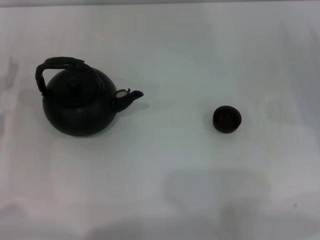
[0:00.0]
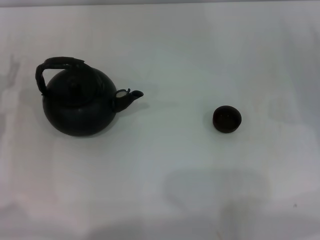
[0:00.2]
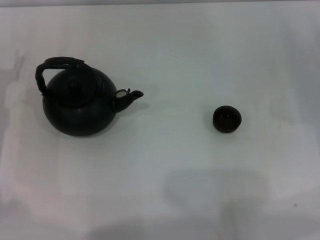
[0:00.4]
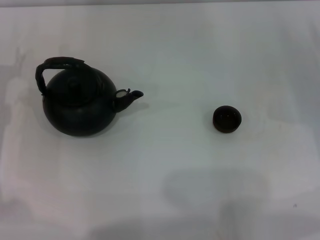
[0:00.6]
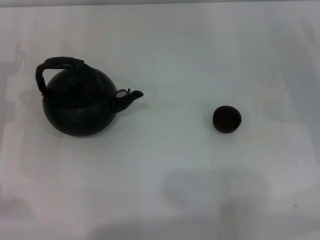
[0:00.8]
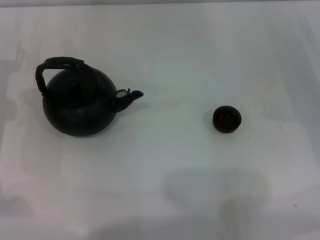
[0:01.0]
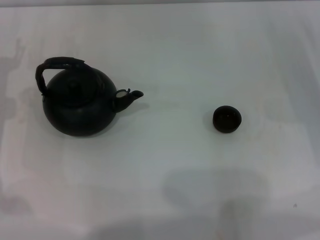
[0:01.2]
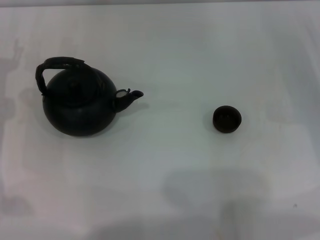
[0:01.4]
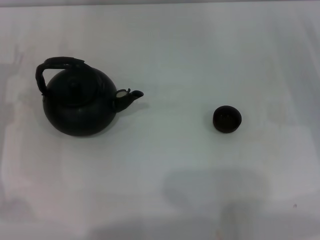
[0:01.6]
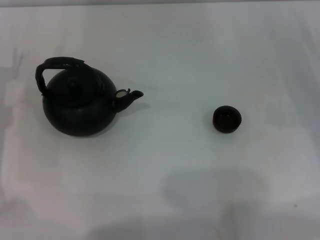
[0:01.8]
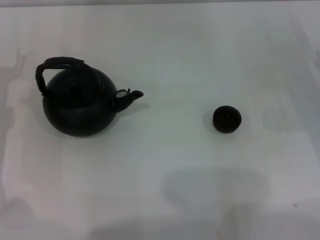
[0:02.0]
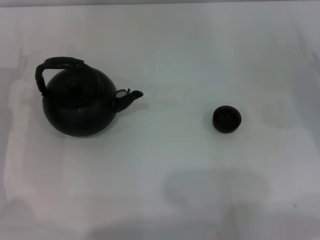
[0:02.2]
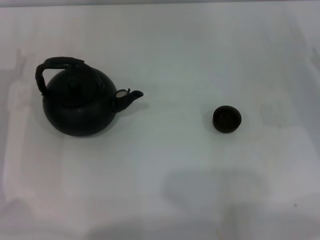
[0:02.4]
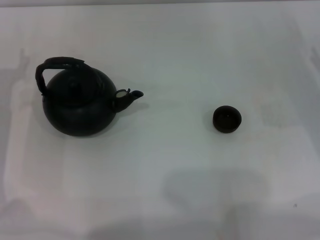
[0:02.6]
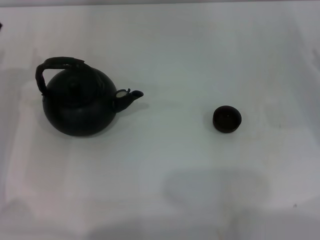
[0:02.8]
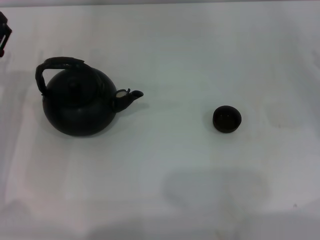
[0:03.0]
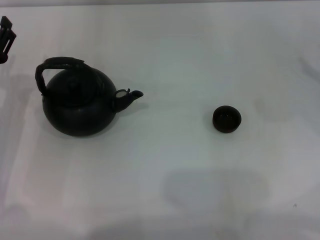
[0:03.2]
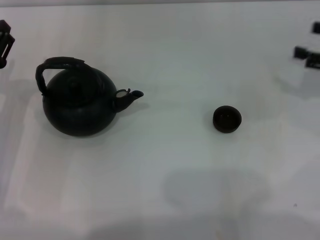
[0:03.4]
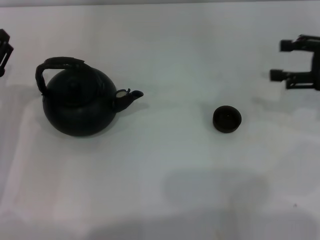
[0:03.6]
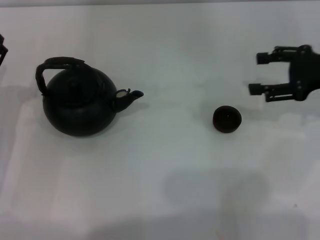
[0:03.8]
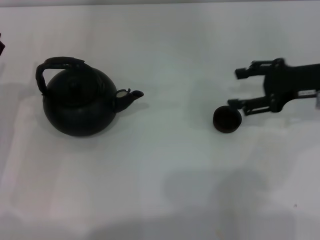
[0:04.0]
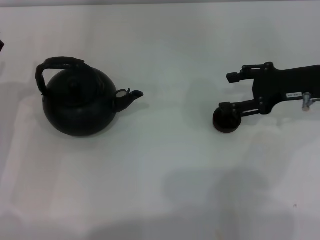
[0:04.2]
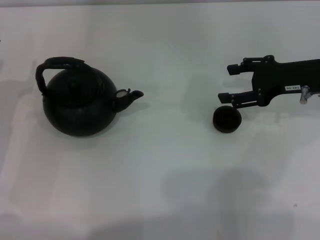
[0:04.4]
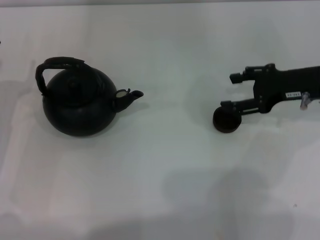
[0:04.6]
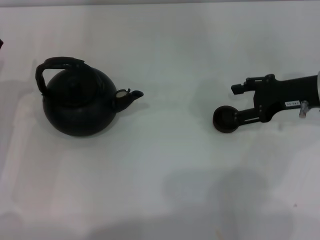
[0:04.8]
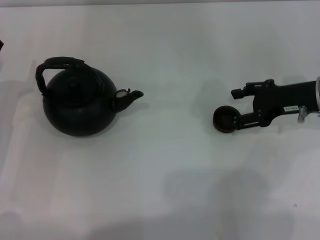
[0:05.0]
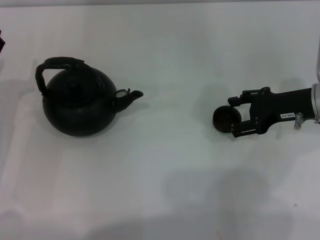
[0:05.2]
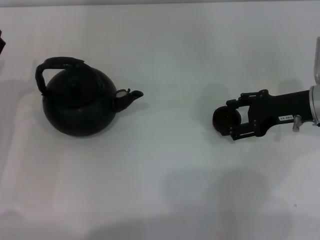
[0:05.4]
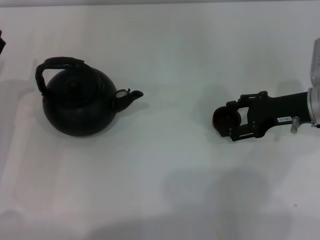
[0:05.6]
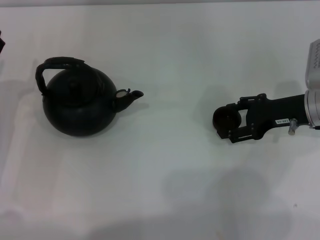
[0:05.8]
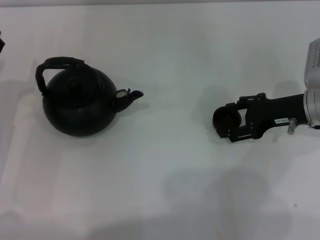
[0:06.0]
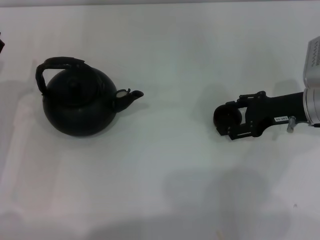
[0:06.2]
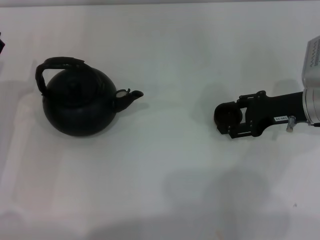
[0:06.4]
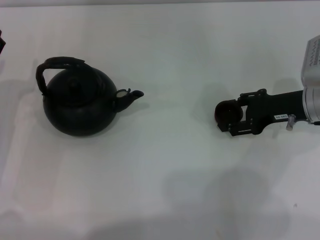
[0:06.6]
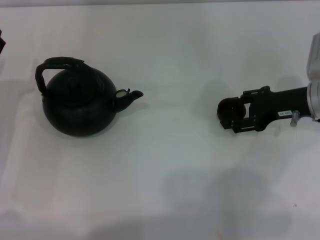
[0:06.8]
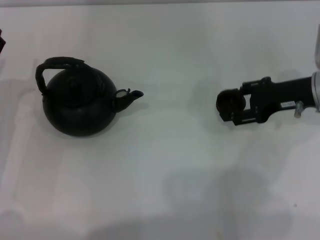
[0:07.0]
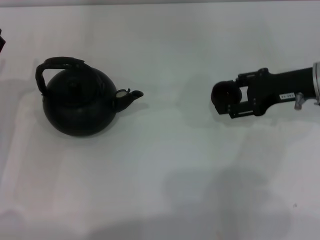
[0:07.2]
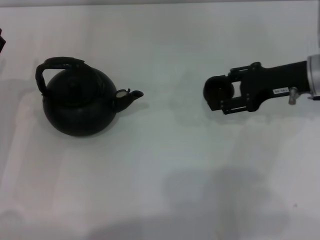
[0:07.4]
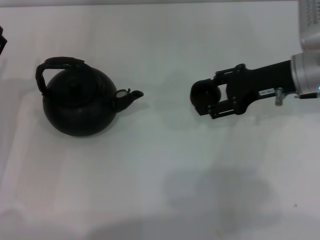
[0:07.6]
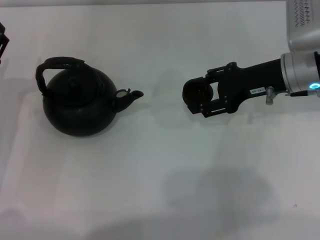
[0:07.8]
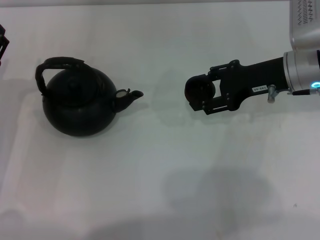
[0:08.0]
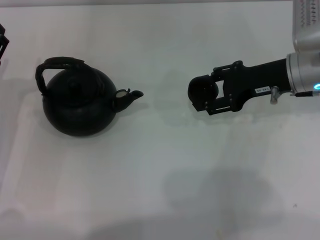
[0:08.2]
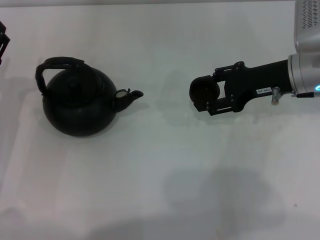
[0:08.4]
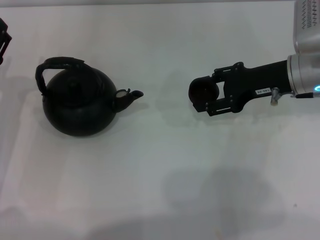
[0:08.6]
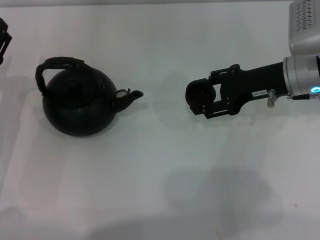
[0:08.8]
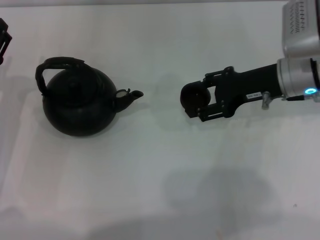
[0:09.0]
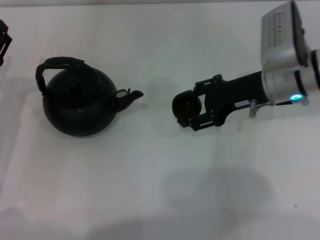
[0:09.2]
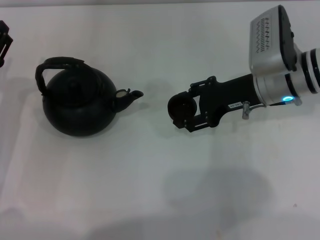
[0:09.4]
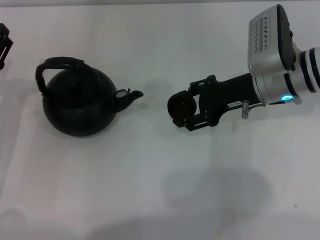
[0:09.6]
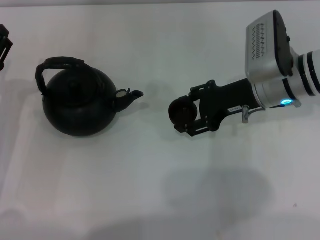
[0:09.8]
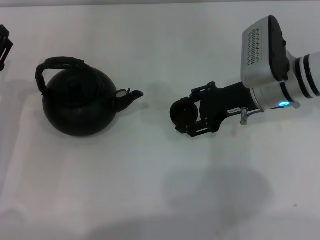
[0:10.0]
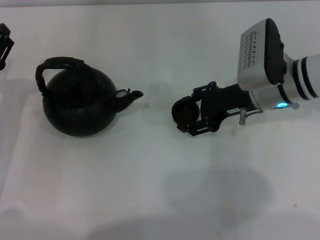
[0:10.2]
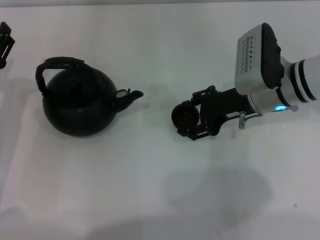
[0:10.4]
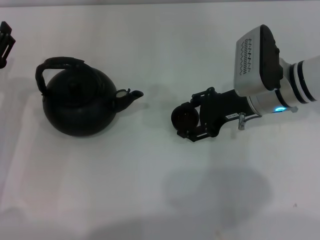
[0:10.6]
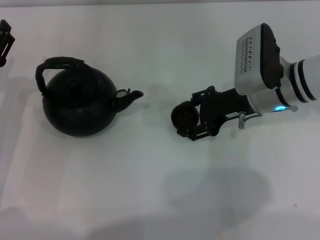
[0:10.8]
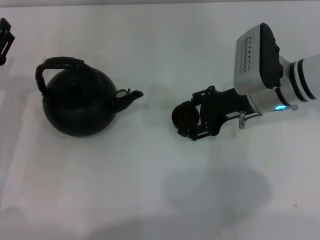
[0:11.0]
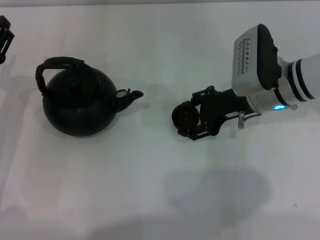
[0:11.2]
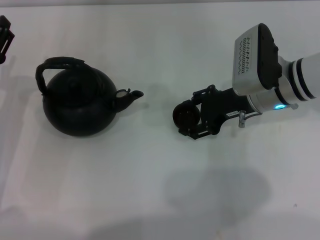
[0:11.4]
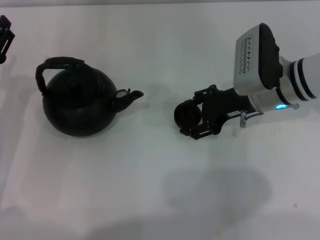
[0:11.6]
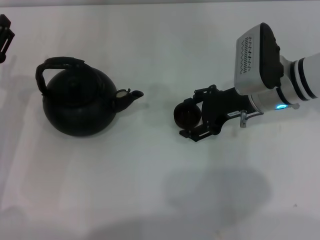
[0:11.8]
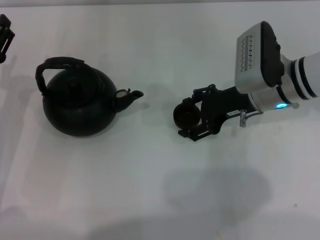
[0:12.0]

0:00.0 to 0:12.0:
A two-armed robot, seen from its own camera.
Task of the whole recording: Grasp the handle of the teapot with one hand and pour tea into the teacup.
Step, 0:00.0 to 0:06.8: Pick up the teacup with the right gripper.
0:03.0 to 0:04.4: The right gripper travels to the left by roughly 10 cm.
0:04.4 to 0:06.0: There are only small adjustments of the grippers.
0:06.0 to 0:07.6: The right gripper shifts approximately 5 cm upward, and closes its fingers.
0:07.6 to 0:10.4: The grippers stay close to where they were, moving slightly.
0:10.4 to 0:12.0: The right gripper opens up.

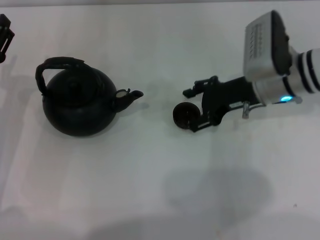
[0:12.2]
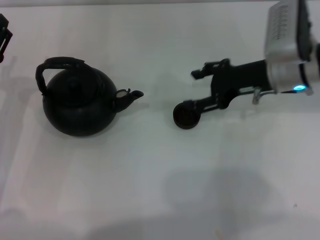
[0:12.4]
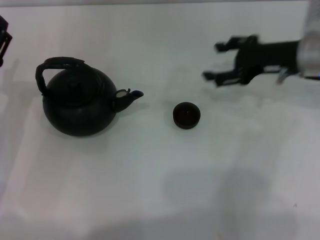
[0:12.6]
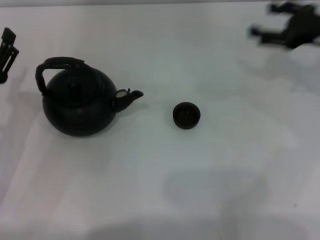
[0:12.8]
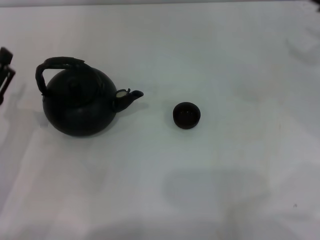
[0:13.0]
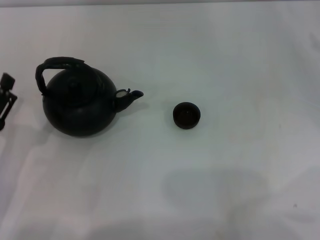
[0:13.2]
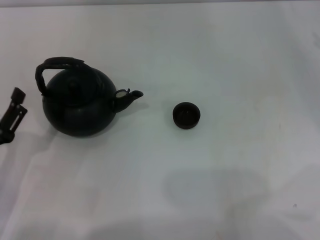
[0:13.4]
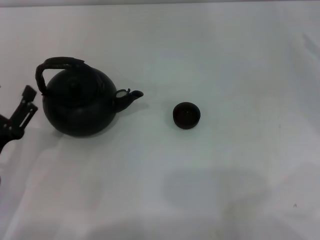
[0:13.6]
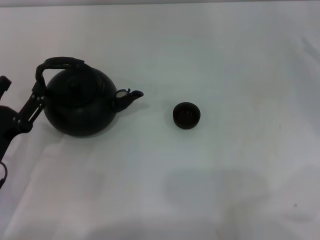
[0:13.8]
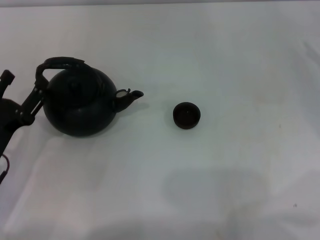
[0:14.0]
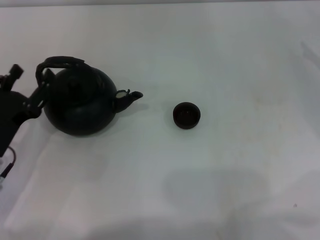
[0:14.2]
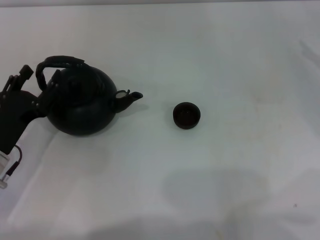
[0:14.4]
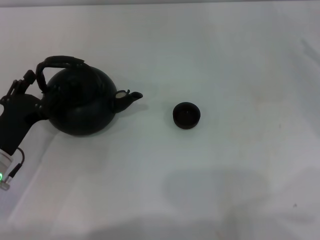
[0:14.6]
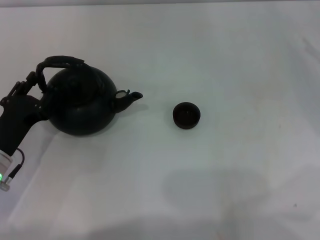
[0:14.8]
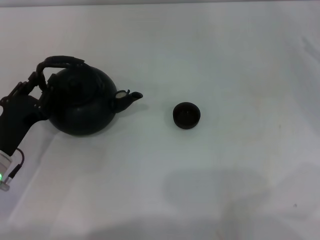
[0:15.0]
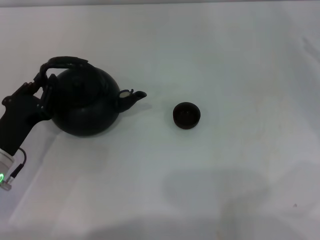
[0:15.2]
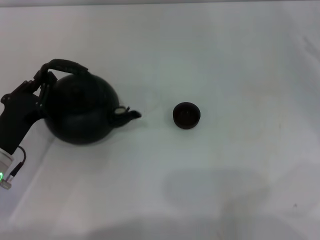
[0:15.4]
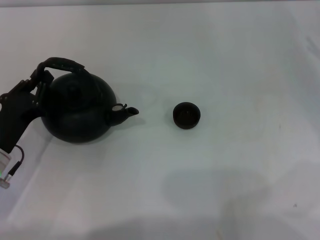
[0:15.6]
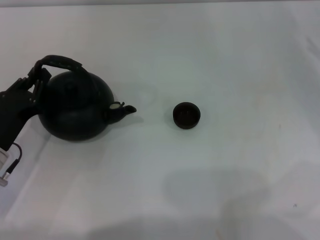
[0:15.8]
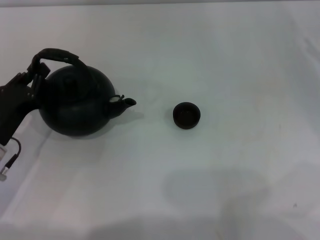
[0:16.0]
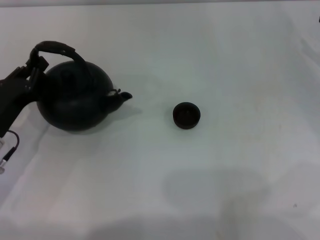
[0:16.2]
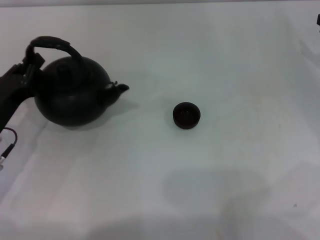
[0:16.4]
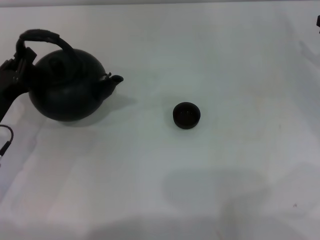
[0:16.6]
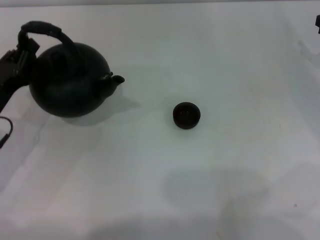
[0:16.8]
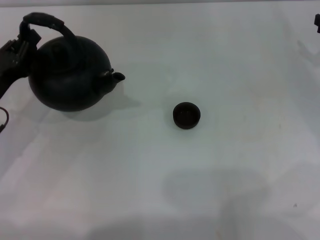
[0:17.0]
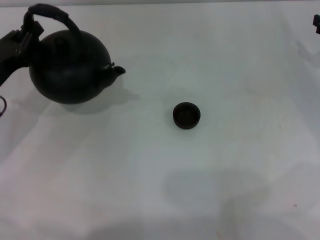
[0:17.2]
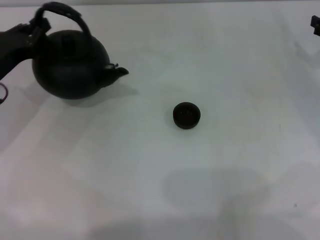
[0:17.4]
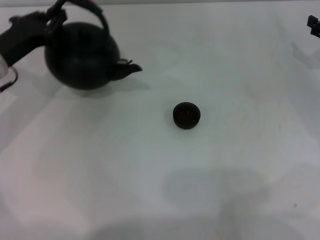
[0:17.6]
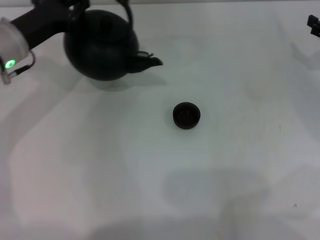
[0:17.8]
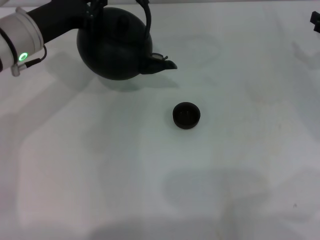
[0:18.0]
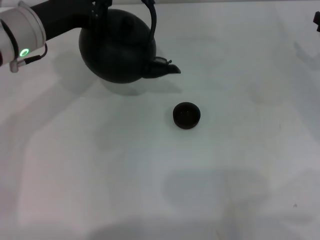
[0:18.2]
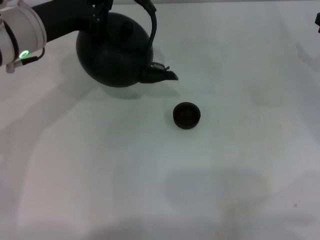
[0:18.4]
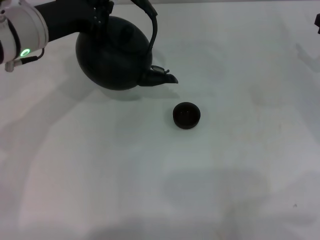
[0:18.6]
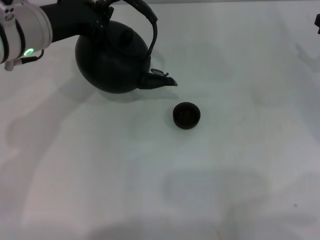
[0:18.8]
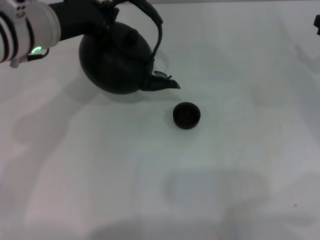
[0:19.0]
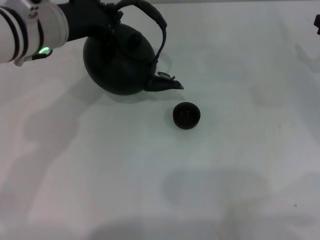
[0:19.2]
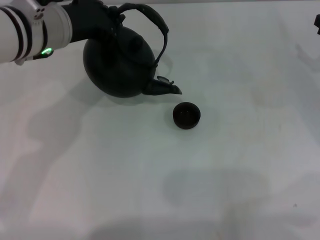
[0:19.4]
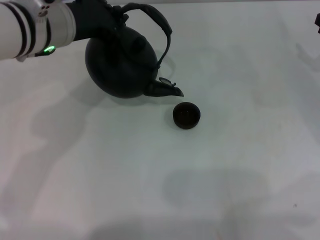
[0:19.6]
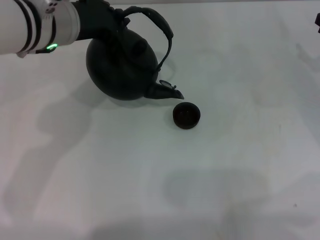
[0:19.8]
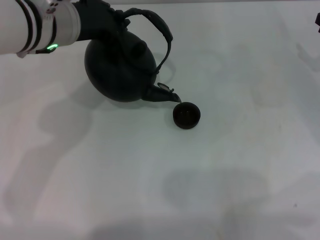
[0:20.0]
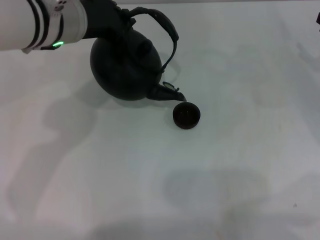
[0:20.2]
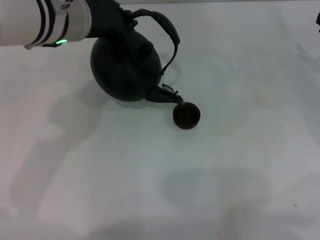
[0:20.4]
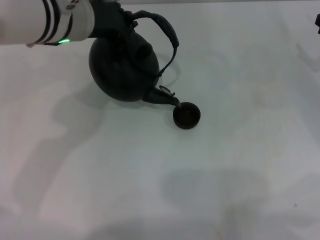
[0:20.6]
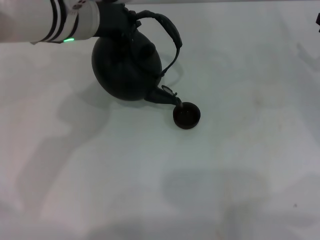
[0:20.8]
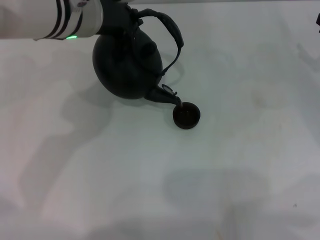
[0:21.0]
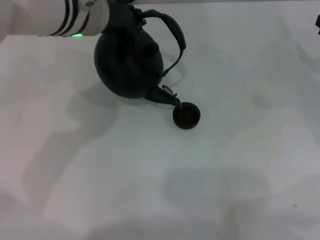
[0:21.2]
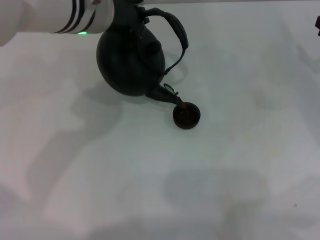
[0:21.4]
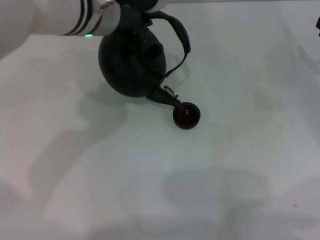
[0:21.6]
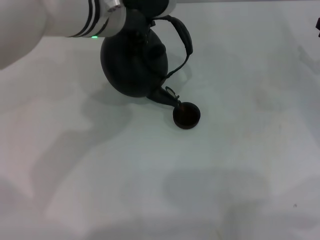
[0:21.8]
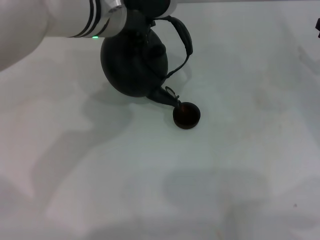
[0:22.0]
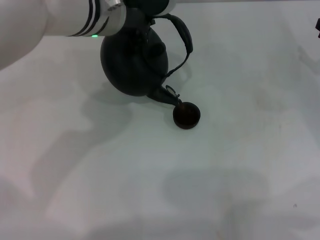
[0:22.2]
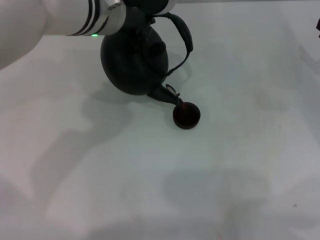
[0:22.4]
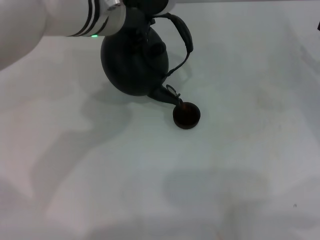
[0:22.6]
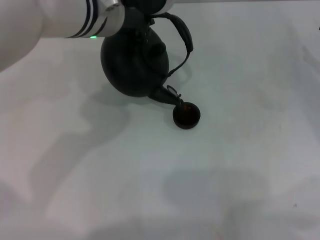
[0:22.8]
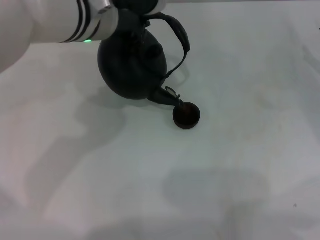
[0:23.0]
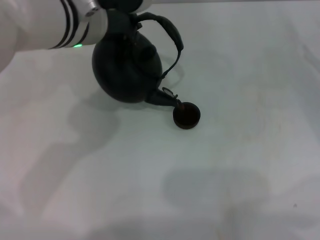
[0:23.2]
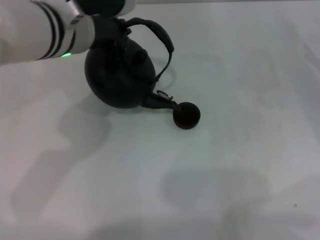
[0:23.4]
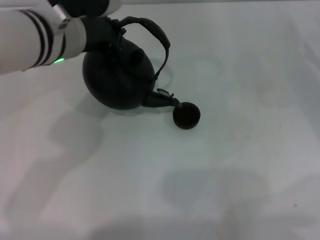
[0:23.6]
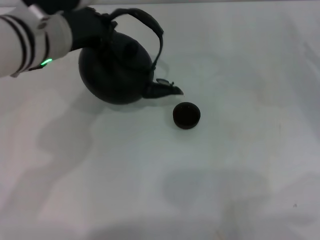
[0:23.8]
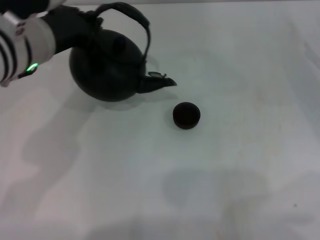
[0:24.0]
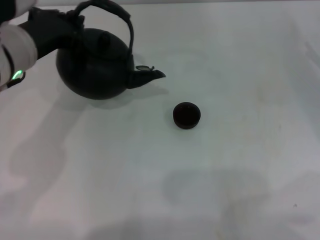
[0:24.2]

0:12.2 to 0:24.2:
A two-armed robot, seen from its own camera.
Task of the whole recording: Grasp the handle of the teapot with one hand and pour tea into the teacup.
Step, 0:12.6 to 0:18.2: Pick up the teapot with the left gripper.
Step, 0:18.6 to 0:23.8: Pour tea into the teacup with the left gripper.
0:12.2 to 0:13.8: The left gripper travels backward by roughly 10 cm; the right gripper goes about 20 cm to the right.
0:13.8 to 0:15.2: The left gripper closes up.
0:15.2 to 0:16.6: The left gripper closes its fingers.
0:16.6 to 0:18.2: The left gripper heads upward, forward and to the right, covering some 20 cm.
0:18.2 to 0:19.8: The left gripper travels to the right by some 5 cm.
0:19.8 to 0:21.2: The grippers make only small movements.
0:21.2 to 0:22.6: There are only small adjustments of the grippers.
0:22.6 to 0:24.2: The left gripper shifts roughly 10 cm to the left.
